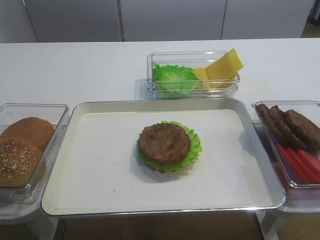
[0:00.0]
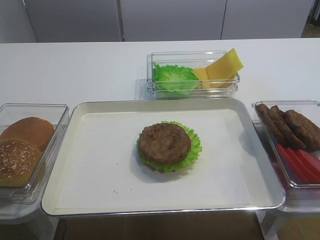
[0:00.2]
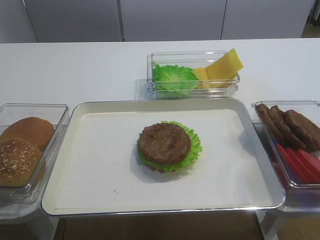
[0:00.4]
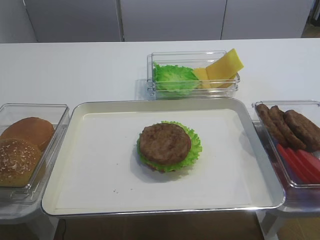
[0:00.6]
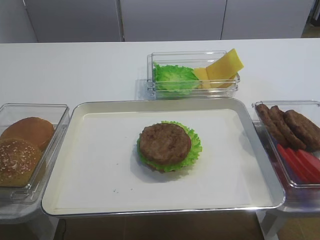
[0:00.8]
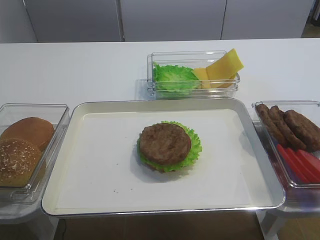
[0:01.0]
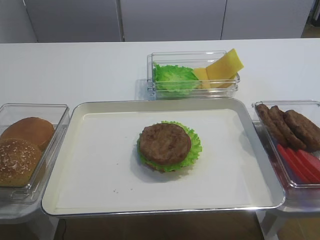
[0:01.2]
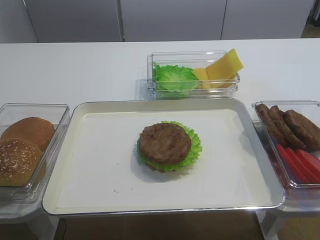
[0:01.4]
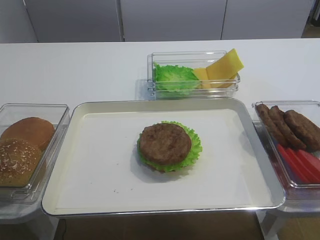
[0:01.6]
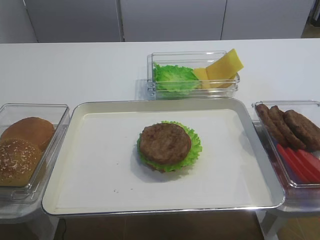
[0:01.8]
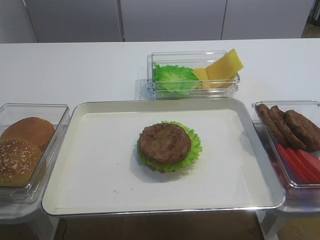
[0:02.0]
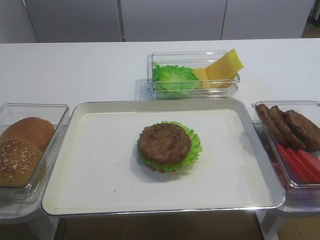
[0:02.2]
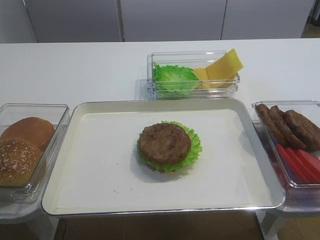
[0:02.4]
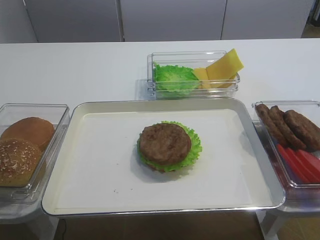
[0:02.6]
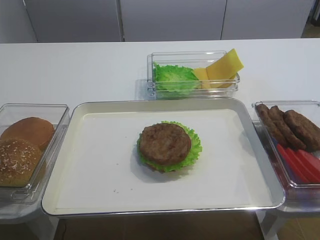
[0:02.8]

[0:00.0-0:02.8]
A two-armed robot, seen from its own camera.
0:00.0 to 0:01.4: The right gripper heads backward, covering approximately 15 cm.

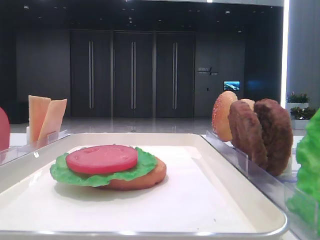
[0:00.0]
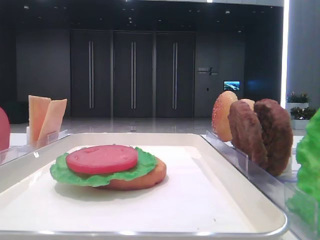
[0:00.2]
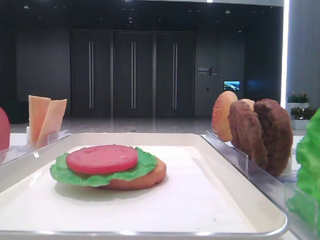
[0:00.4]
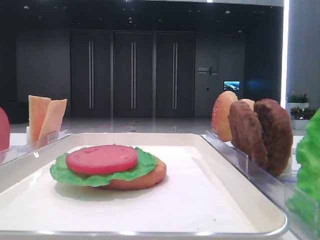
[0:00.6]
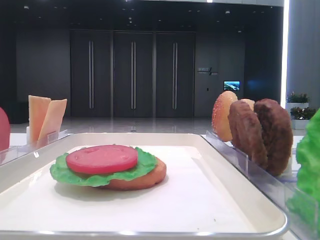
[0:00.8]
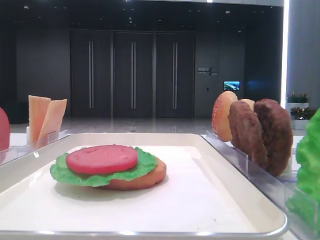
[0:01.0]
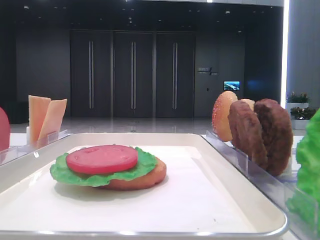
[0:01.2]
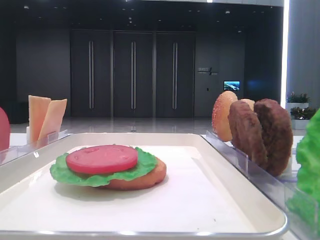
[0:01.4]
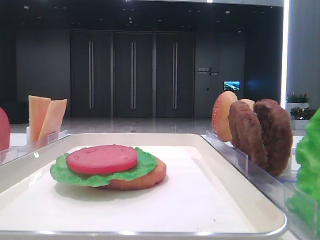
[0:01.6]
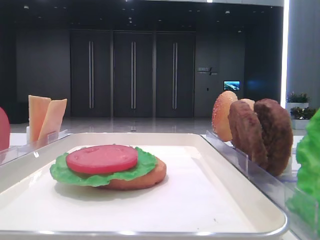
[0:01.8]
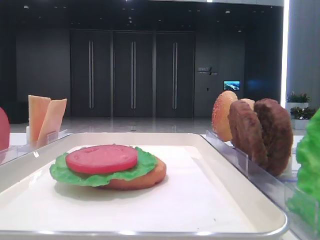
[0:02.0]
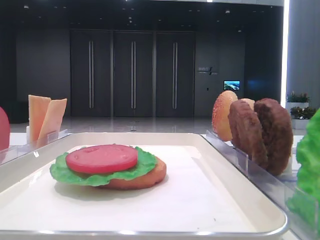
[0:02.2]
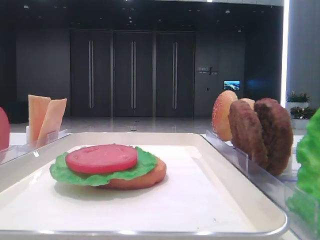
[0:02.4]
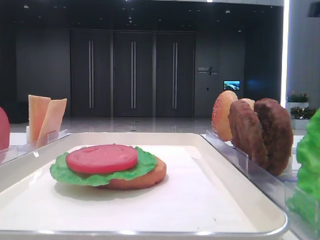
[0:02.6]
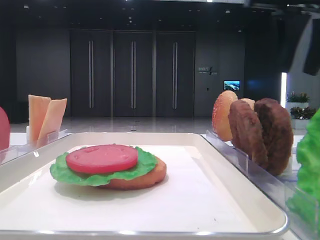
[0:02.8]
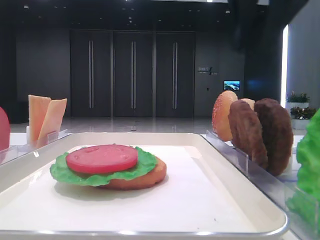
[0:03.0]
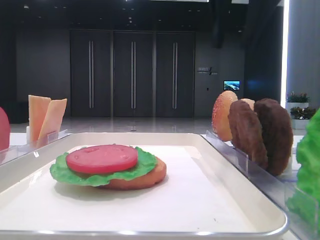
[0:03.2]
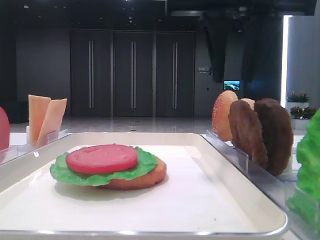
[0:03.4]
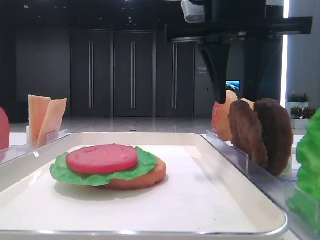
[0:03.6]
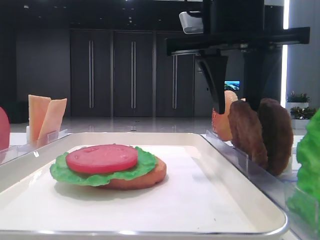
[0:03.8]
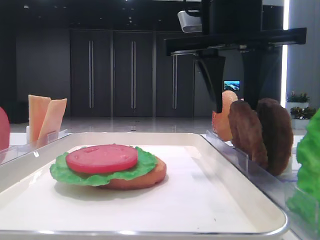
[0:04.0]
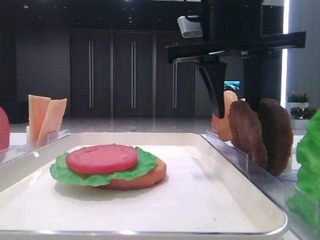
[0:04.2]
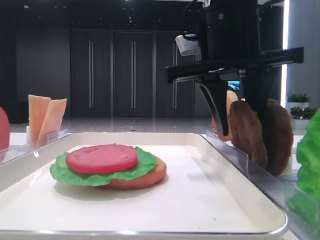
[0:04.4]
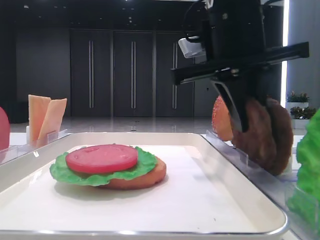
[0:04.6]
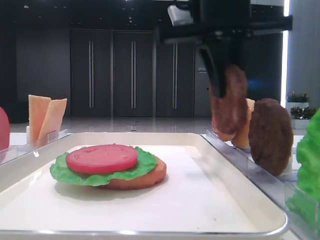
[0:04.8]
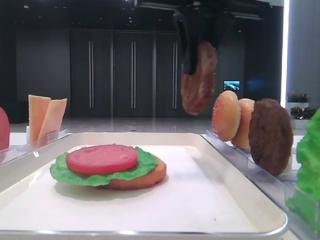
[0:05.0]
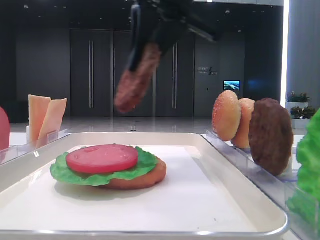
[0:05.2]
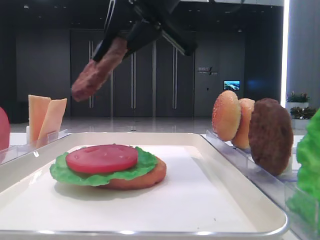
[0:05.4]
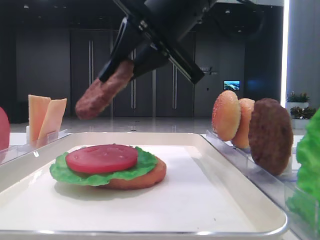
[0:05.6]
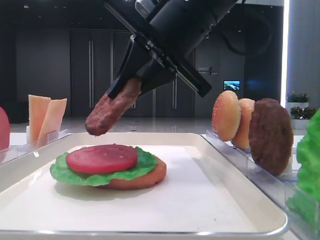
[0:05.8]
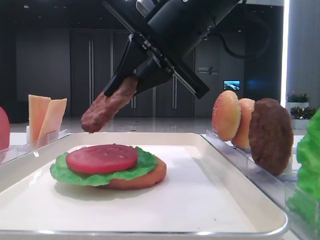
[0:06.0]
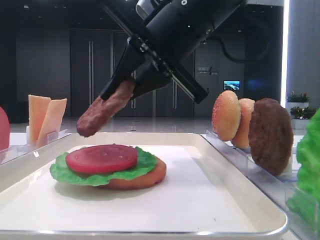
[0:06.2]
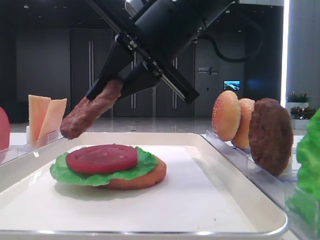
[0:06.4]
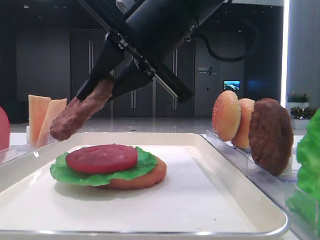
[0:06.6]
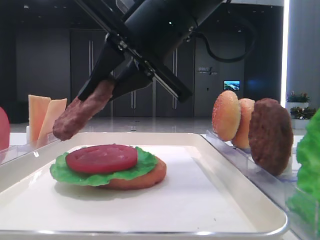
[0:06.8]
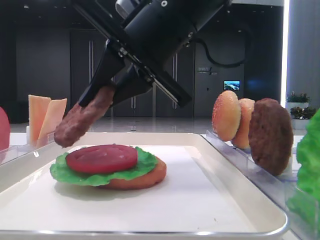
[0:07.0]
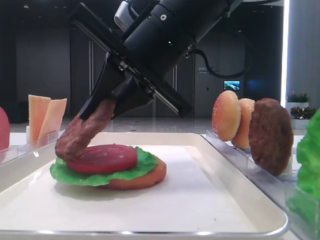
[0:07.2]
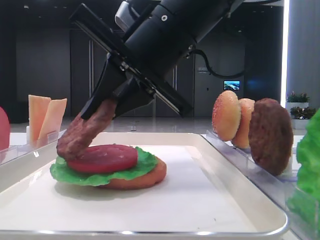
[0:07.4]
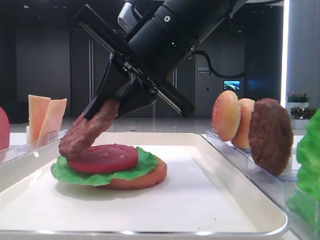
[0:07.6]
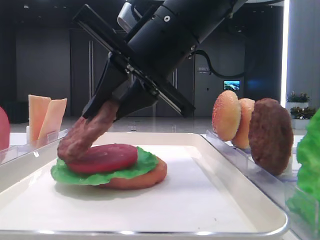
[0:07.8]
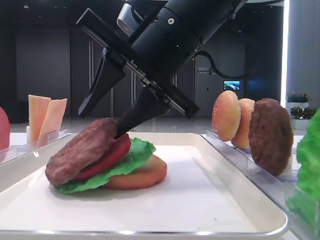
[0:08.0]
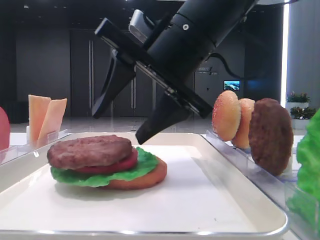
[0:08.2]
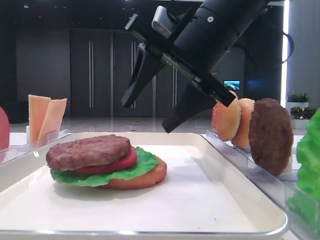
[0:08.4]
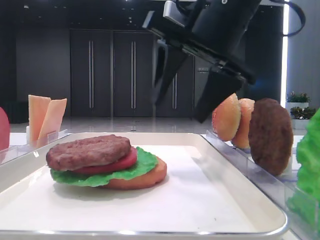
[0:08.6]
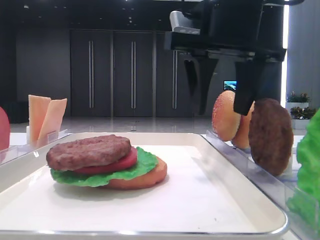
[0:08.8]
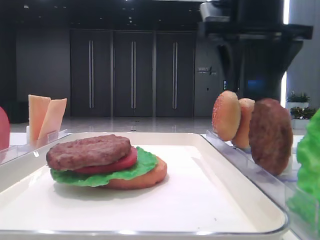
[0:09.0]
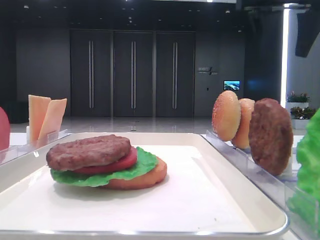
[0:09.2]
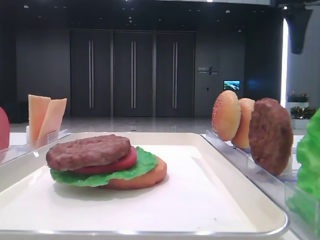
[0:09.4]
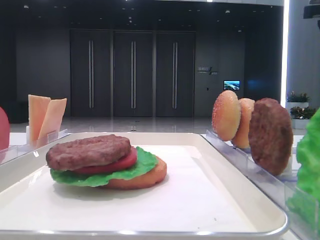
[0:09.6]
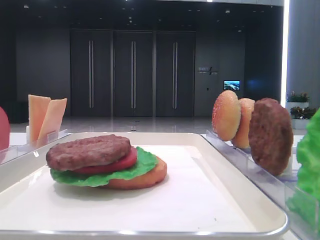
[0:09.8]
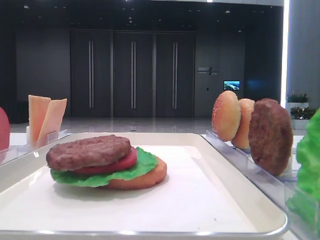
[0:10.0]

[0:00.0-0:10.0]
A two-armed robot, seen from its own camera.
Step, 0:00.0 to 0:04.4: Grab the patty with the right hand.
Step, 0:04.6 to 0:08.0: Place the patty on the tomato slice with the right hand.
0:01.4 to 0:02.8: The right gripper is displaced forward by about 30 cm.
0:02.8 to 0:04.2: The right gripper shifts roughly 10 cm to the left and downward.
0:04.2 to 0:05.8: The right gripper closes its fingers.
0:05.8 to 0:07.2: There are only small adjustments of the grippers.
0:07.2 to 0:08.6: The right gripper is displaced to the right by some 5 cm, and opens.
0:08.6 to 0:10.0: The right gripper travels to the right by approximately 20 cm.

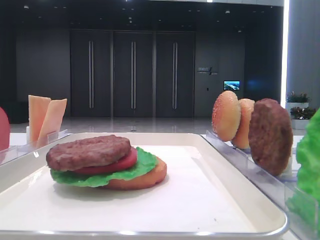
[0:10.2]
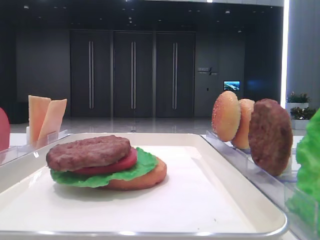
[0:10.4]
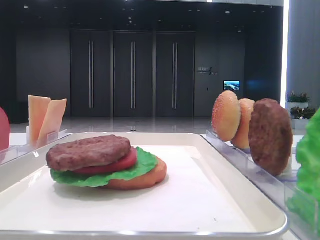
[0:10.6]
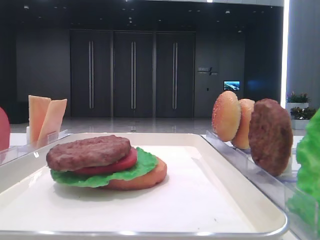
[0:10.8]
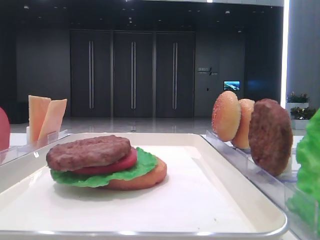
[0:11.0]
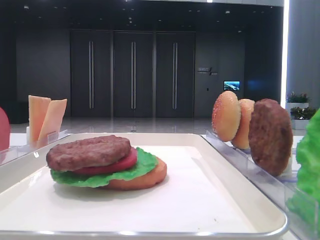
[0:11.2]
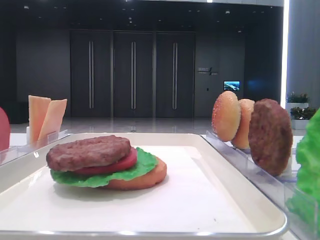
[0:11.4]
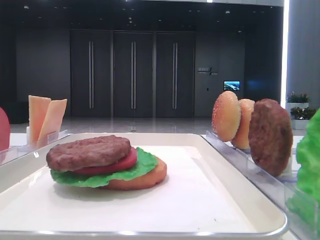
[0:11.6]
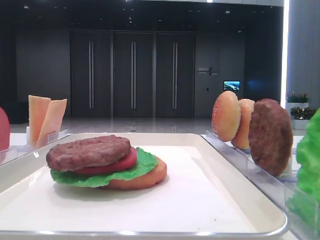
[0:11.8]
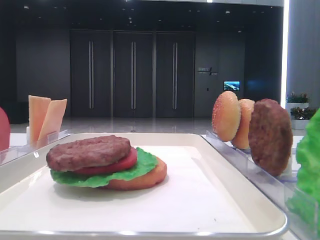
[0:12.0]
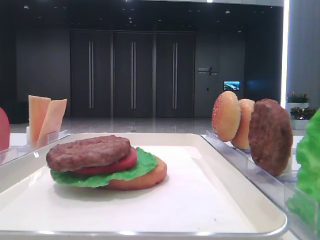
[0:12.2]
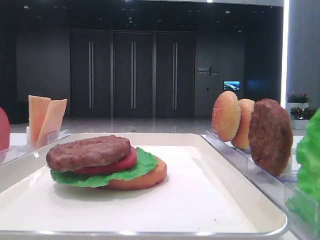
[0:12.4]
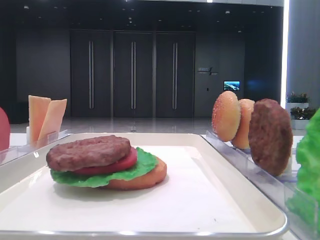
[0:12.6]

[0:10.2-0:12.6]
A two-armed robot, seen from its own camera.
0:11.4 to 0:12.6: The two grippers keep their place.

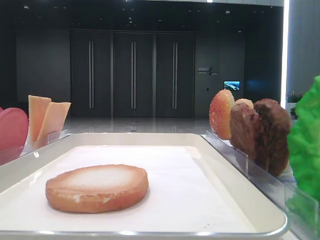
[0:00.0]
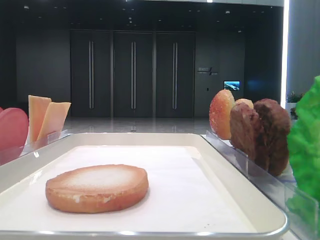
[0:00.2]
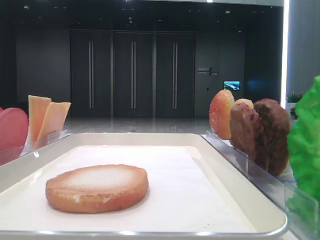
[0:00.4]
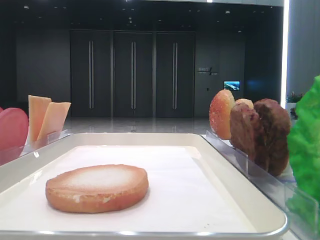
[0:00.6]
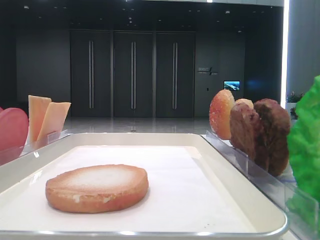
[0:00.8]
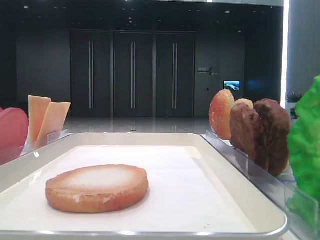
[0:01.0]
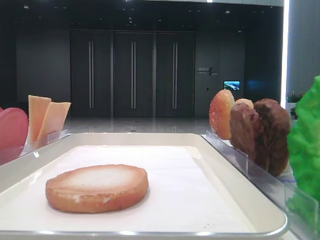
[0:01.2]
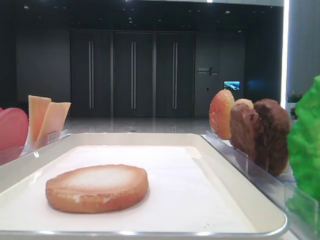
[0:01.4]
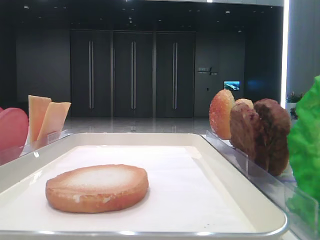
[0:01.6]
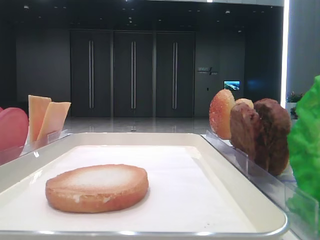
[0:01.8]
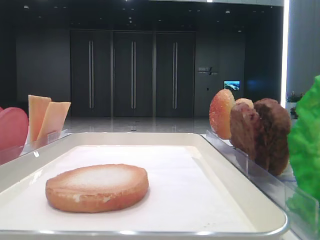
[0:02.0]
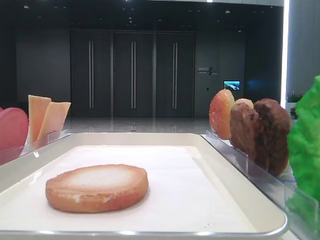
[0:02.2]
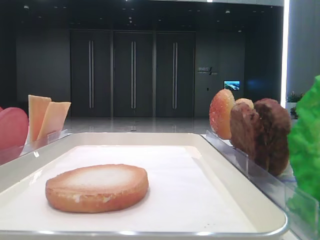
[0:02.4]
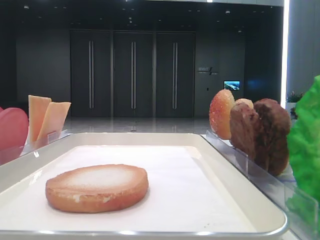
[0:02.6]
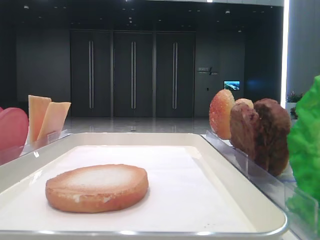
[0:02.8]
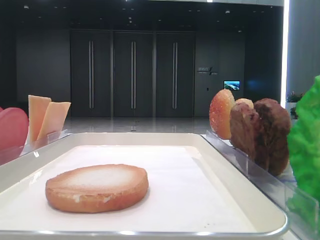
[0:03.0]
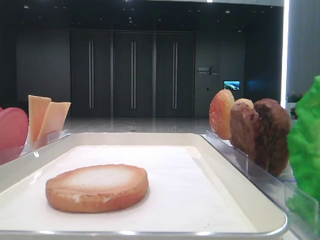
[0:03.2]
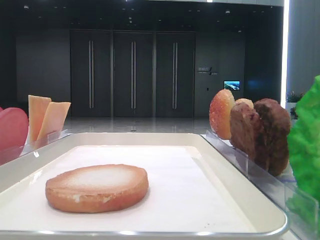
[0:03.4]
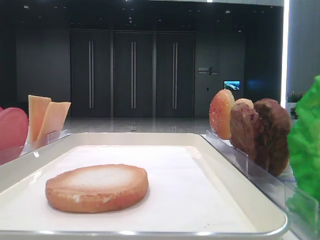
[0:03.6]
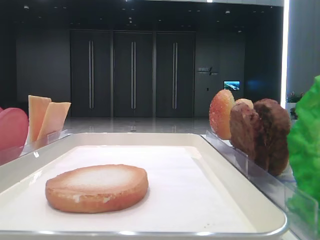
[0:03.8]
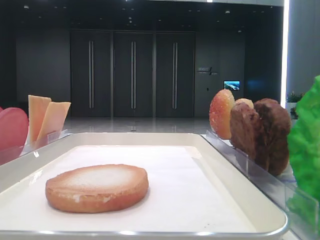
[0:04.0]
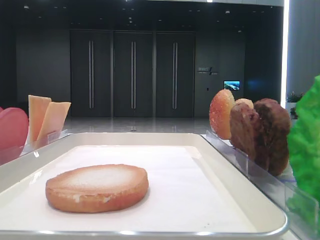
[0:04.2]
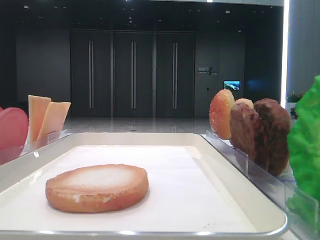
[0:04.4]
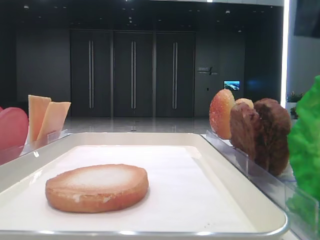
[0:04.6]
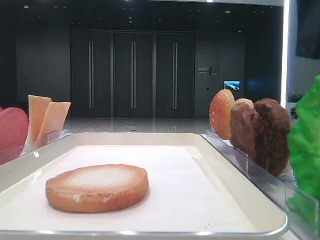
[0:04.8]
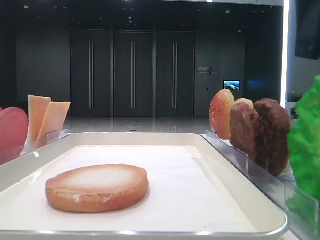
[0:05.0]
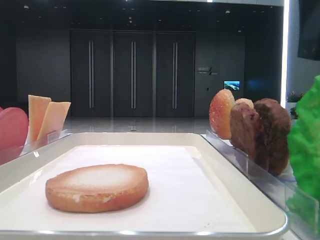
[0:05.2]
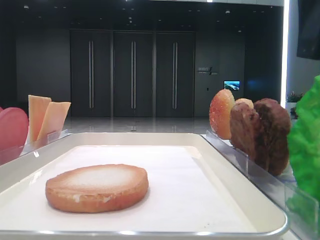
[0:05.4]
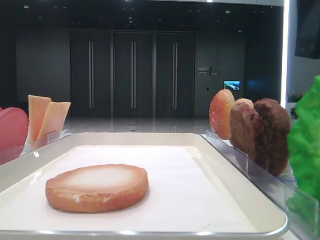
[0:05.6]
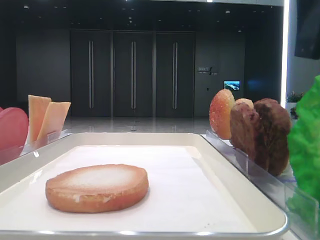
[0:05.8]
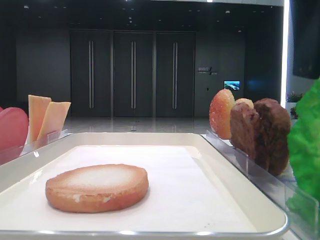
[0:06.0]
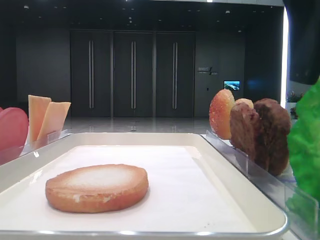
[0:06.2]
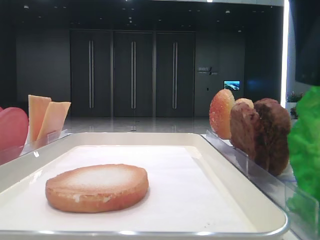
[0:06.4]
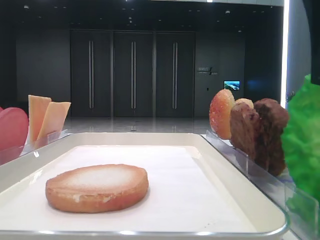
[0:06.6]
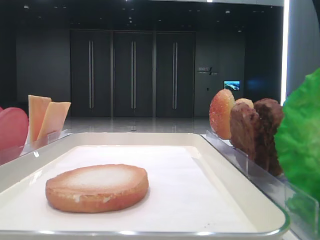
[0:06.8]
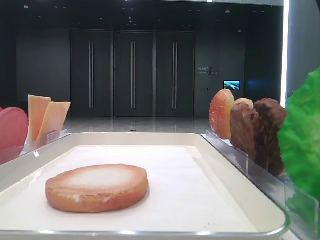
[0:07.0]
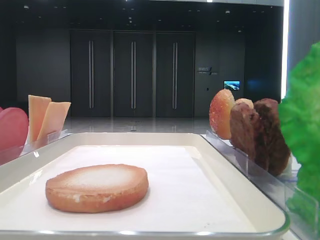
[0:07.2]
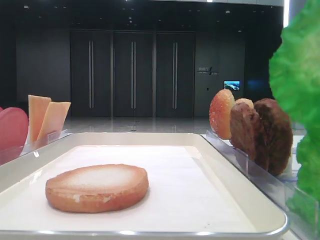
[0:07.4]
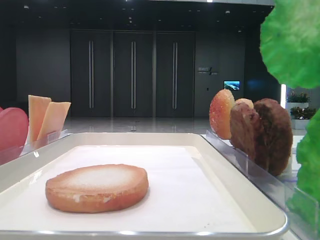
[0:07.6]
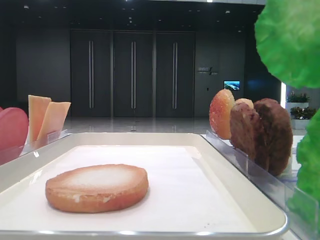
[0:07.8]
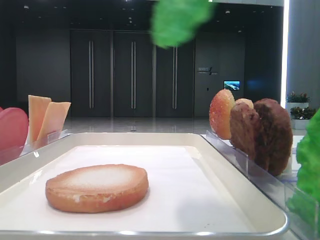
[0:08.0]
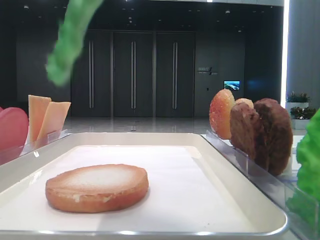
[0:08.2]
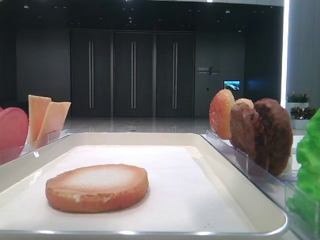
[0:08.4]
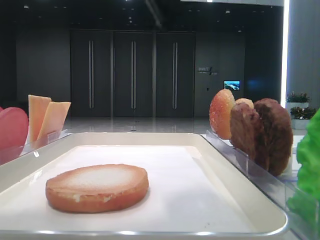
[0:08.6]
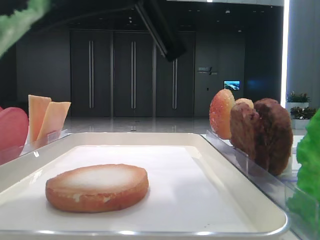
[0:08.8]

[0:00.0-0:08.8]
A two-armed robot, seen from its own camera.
Step, 0:00.0 to 0:06.8: Grab the lettuce leaf with the right hand.
0:04.4 to 0:05.8: The grippers move only a little.
0:05.8 to 0:07.4: The right gripper moves upward, approximately 5 cm, and closes up.
0:07.4 to 0:08.8: The right gripper shifts some 15 cm to the left, downward and forward.
